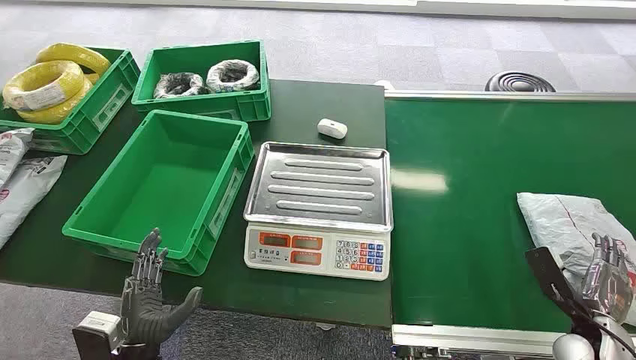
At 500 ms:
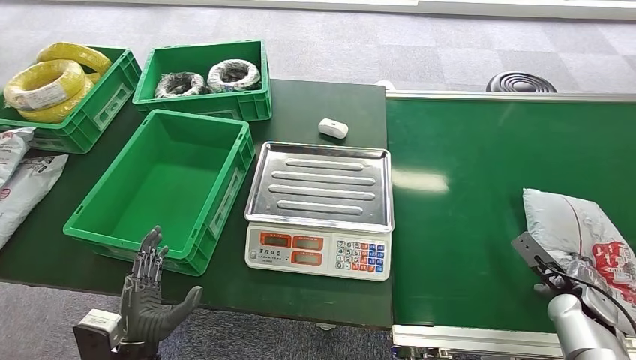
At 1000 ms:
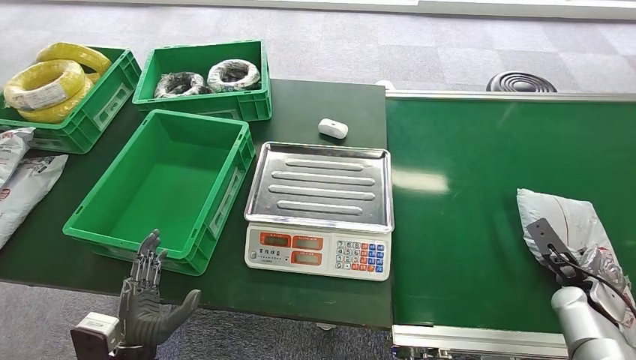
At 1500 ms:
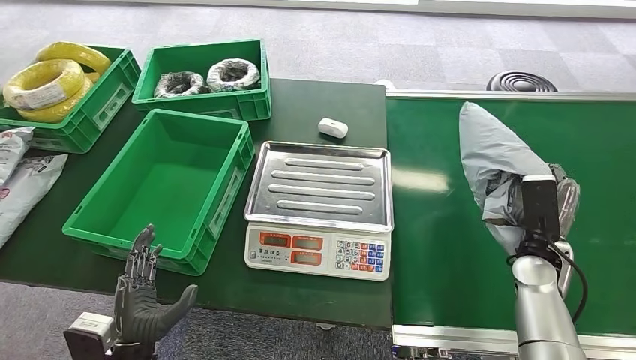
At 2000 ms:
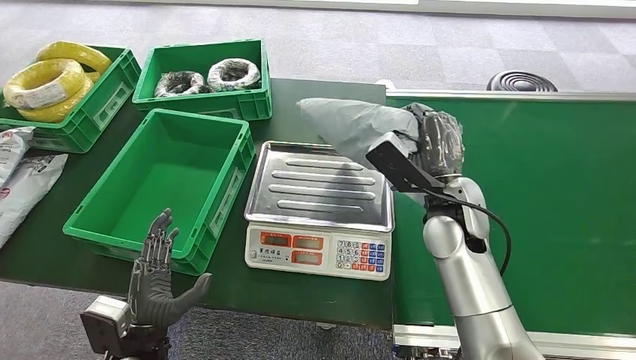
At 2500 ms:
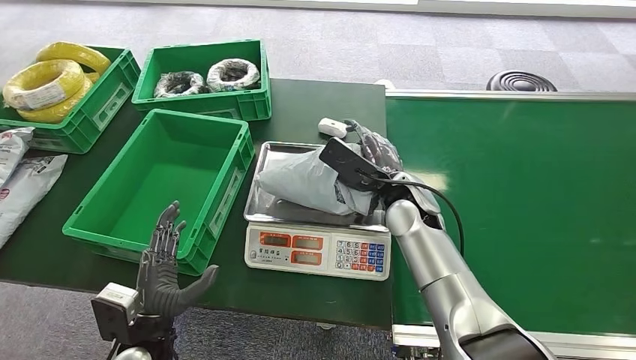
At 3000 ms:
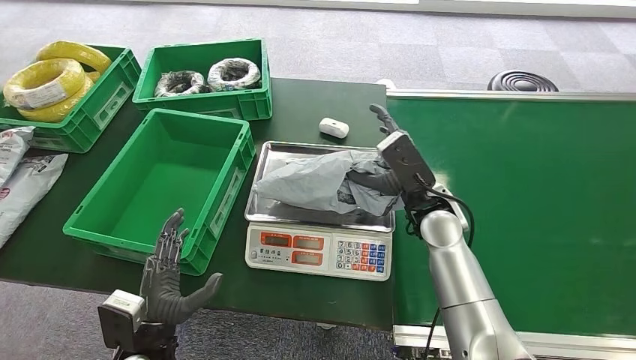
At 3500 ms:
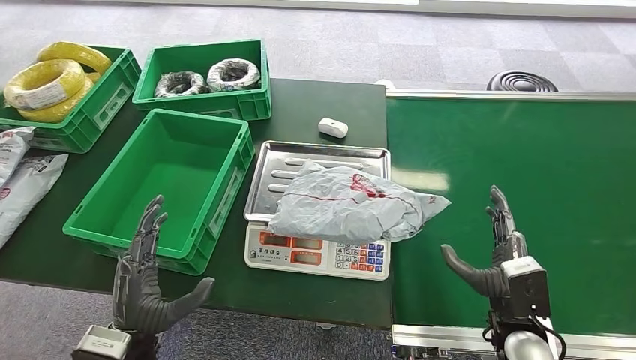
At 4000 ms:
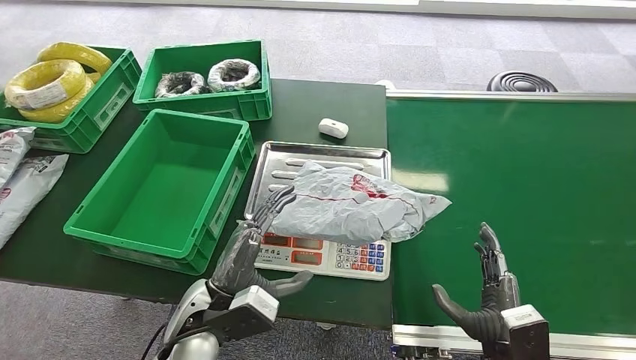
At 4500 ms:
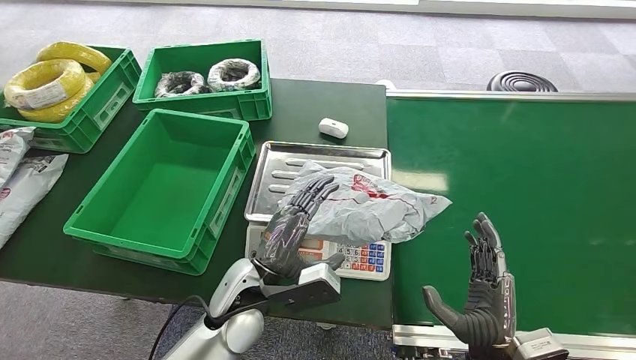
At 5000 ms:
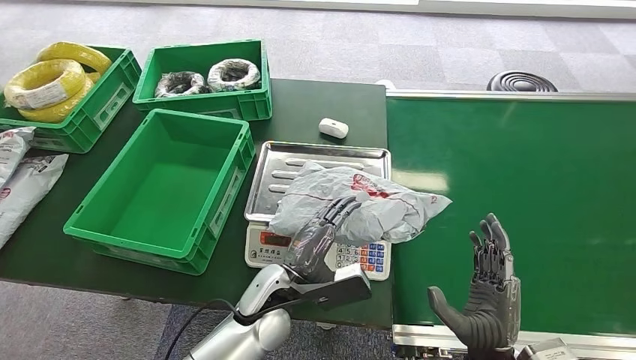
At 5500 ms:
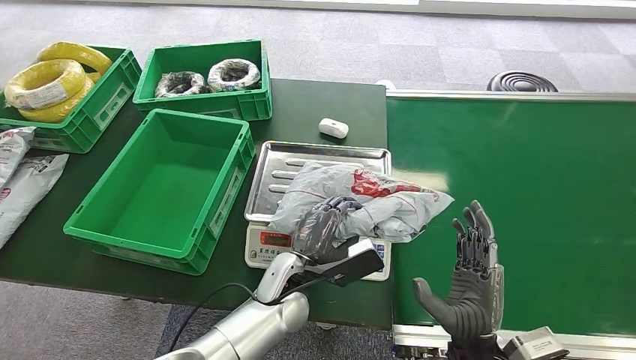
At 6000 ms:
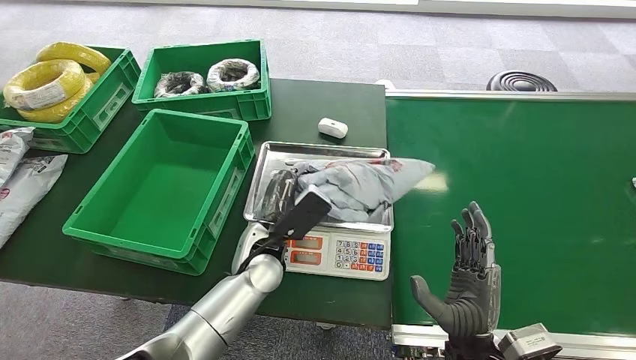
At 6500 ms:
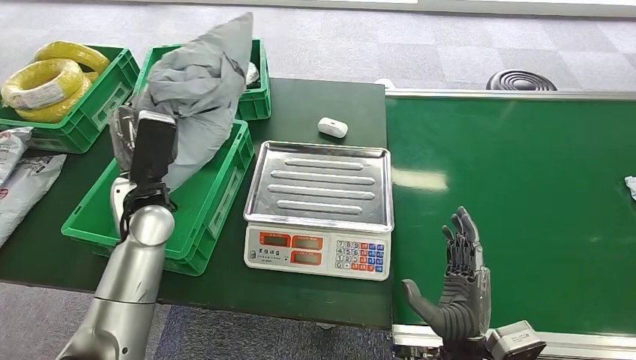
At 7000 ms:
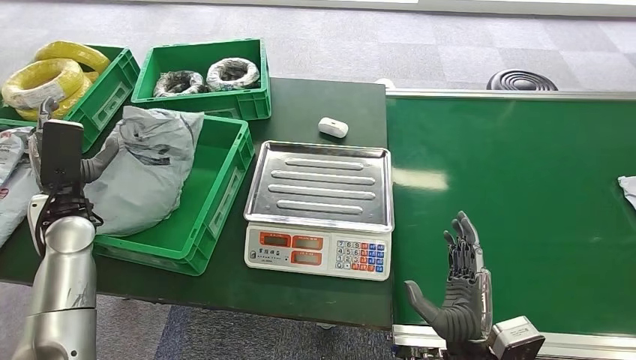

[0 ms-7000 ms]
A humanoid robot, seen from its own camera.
Step, 0 ms to 1500 ms: Pick up the package from the conveyor belt.
Step, 2000 ms to 3500 ms: Place the package onto the inbound machine.
Step, 4000 ms to 6000 ms: Pick up the package from the inbound machine.
Step, 6500 ms to 7000 ms: Place the package into the parcel locker.
2000 ms to 3500 ms: The right hand goes approximately 20 cm backward, downward and to the right.
3500 ms to 5000 ms: The right hand heads to the left and backward, covering approximately 10 cm. Meanwhile the left hand is displaced to the right and forward by roughly 20 cm.
